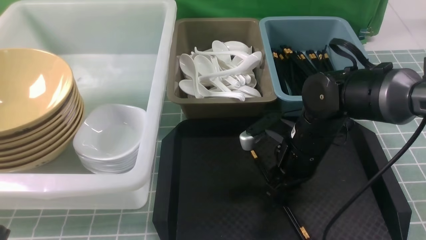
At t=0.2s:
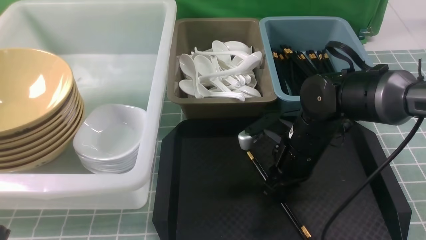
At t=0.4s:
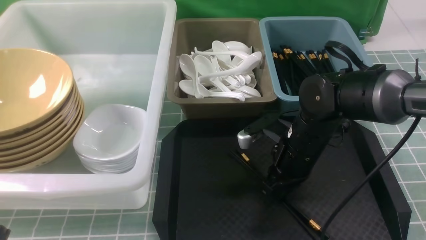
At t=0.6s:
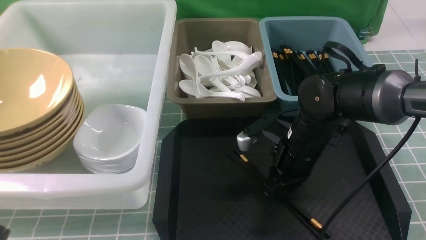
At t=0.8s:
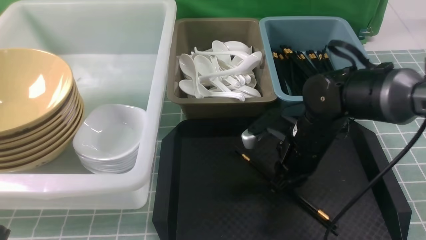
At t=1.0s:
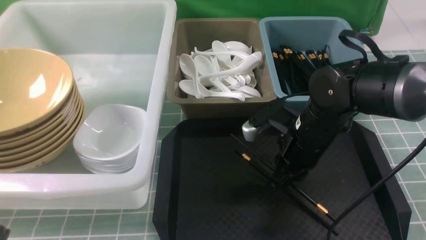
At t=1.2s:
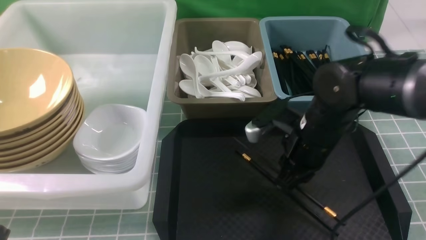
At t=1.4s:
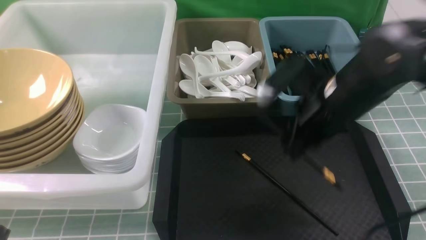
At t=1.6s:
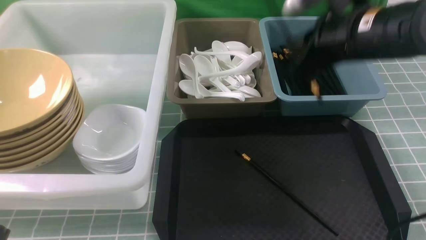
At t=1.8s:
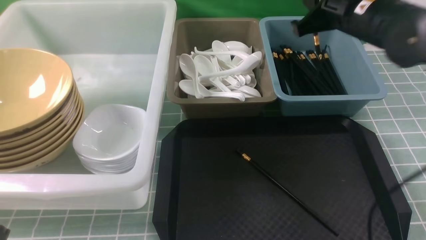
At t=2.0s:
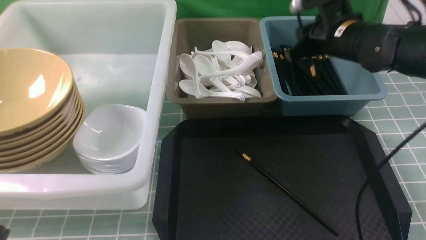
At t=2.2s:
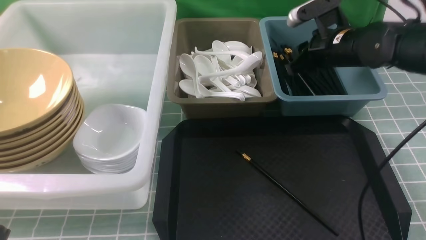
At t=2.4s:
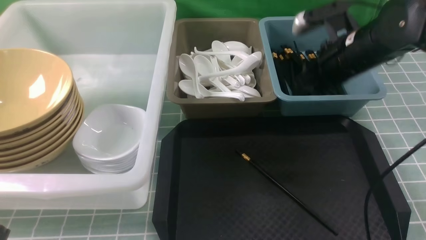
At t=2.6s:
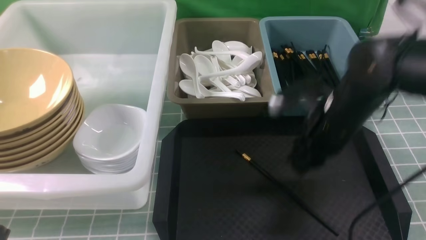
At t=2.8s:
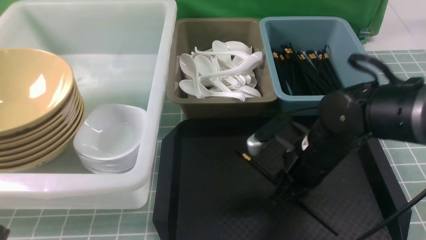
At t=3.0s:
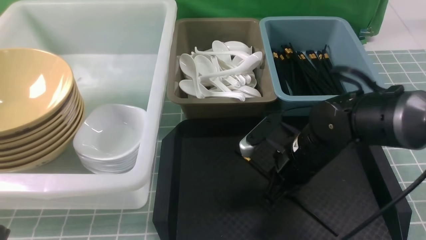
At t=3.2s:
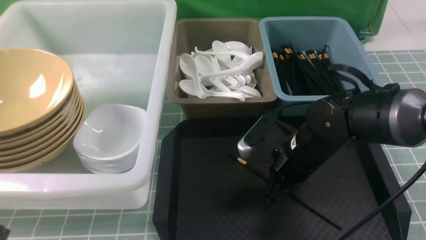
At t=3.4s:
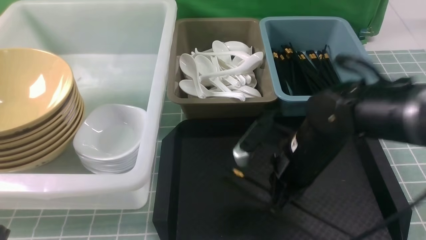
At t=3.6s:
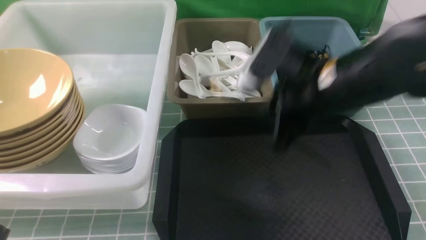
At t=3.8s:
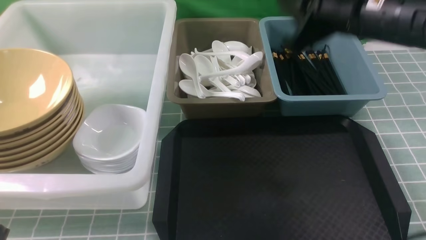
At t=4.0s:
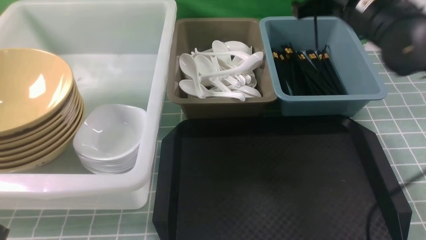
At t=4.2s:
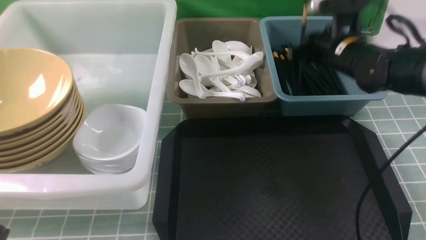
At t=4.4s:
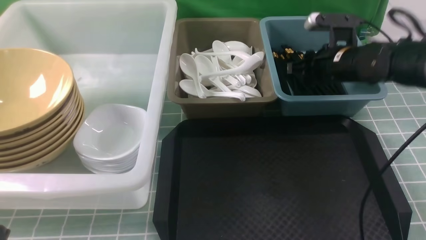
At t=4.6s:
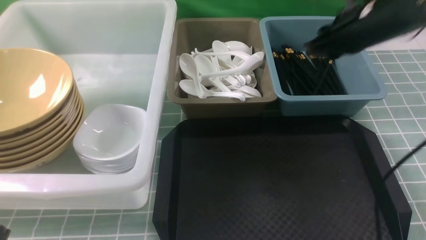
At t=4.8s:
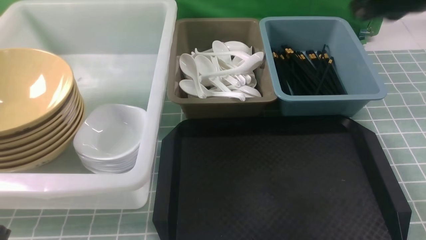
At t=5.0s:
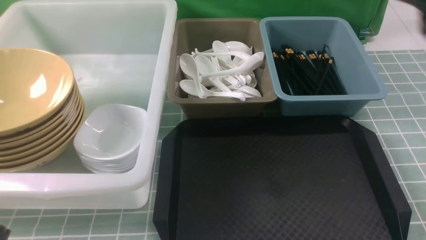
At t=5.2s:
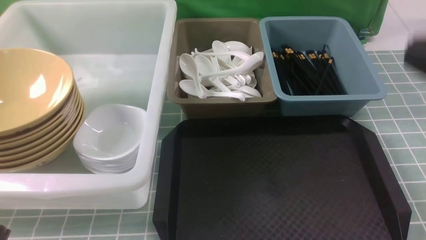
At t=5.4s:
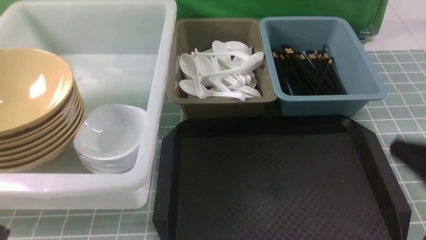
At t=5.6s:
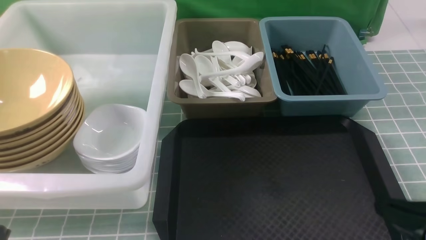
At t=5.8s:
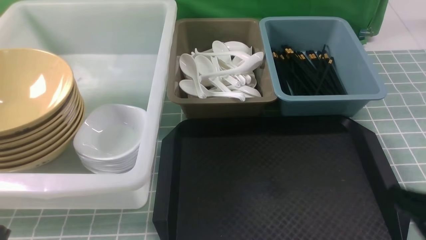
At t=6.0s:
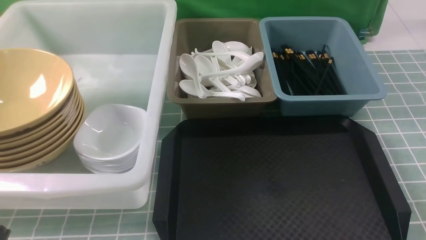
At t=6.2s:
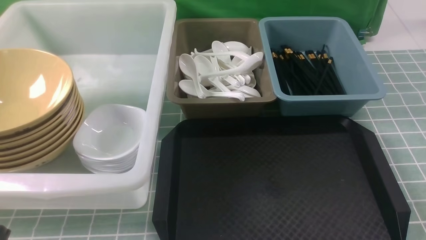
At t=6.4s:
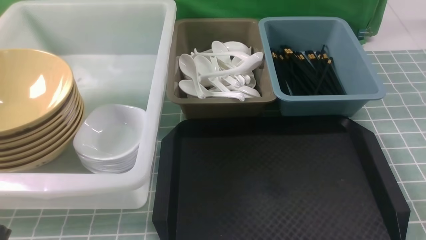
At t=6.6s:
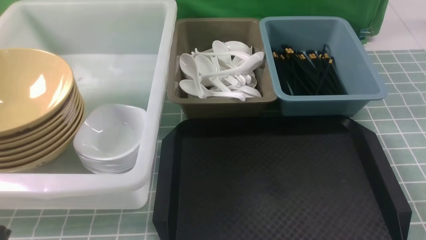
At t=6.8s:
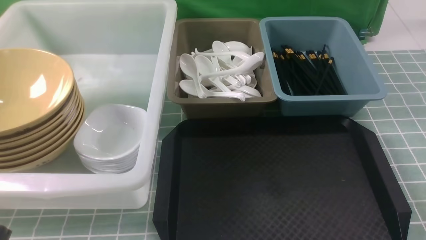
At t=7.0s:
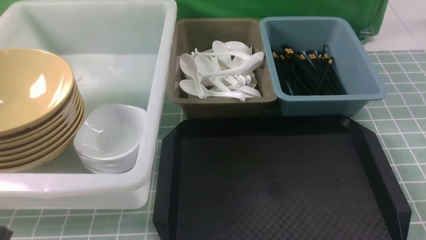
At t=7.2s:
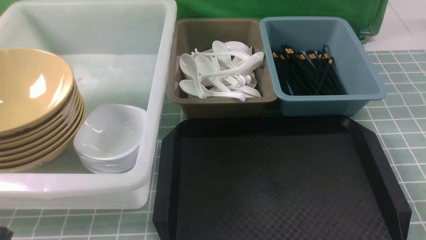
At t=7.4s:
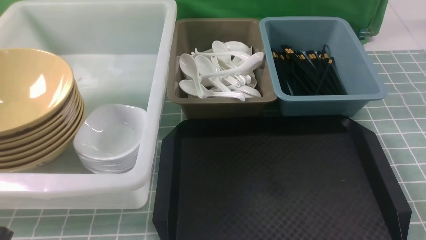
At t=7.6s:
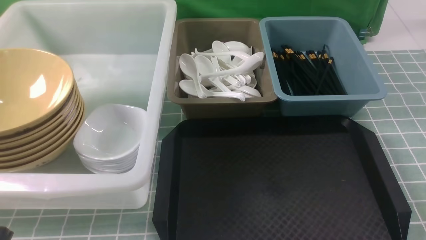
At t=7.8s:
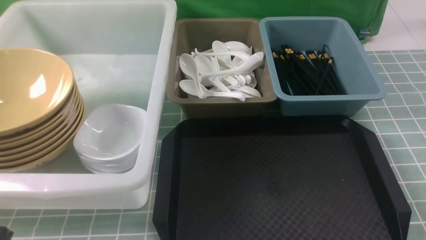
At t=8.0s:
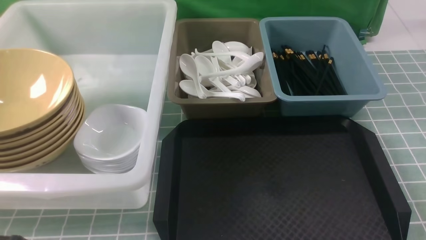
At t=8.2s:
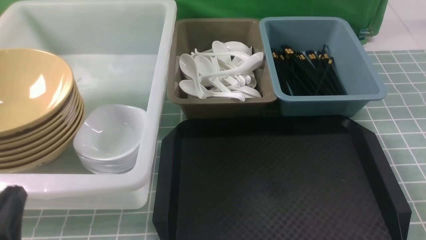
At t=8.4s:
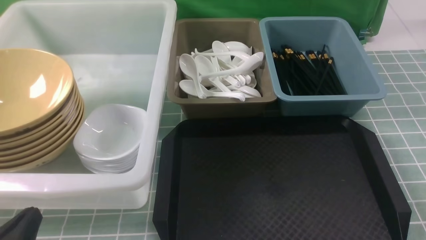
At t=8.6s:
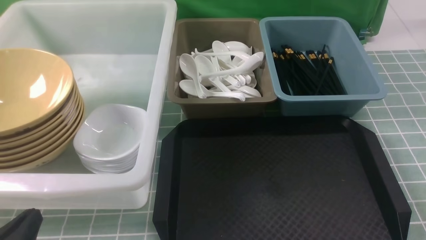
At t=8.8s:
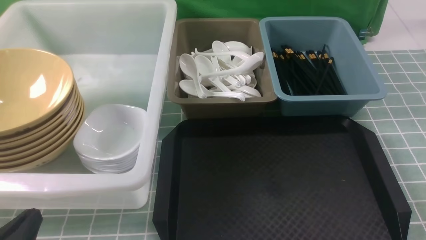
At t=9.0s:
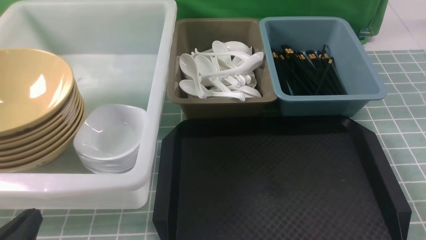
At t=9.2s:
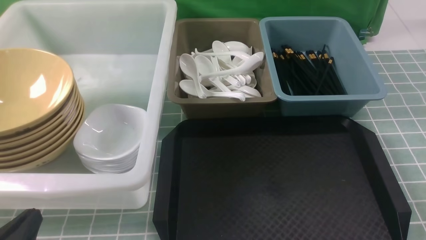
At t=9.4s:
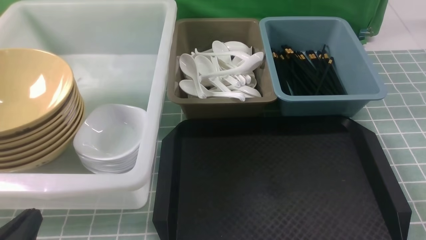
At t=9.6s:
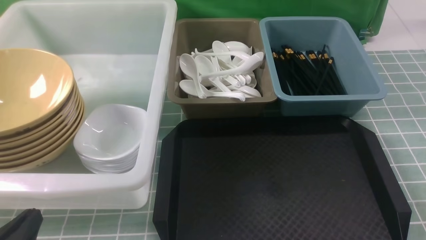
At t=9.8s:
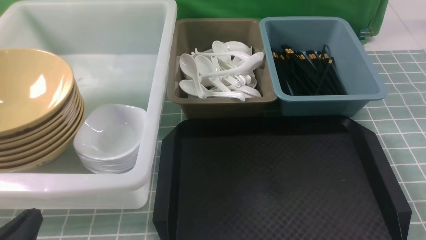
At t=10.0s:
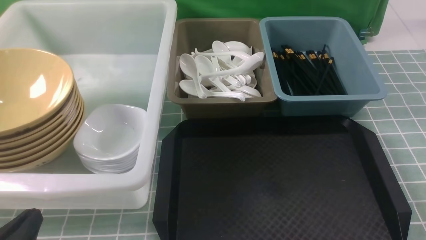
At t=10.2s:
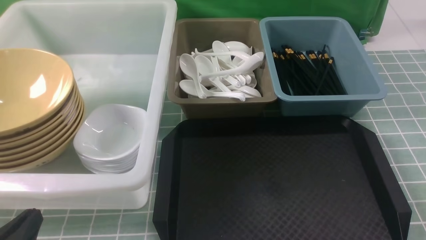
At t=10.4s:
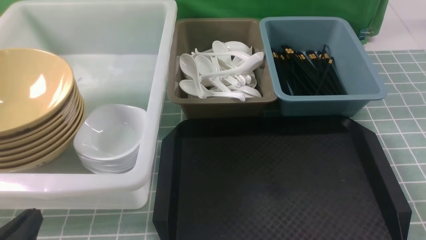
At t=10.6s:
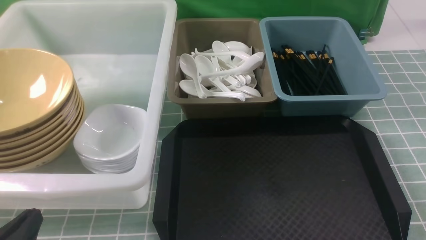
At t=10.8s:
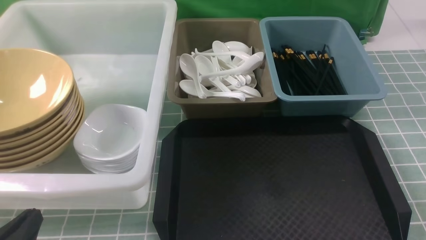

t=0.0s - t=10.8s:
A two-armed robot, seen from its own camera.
Task of the whole recording: on blue table put chopsticks spoon bowls plates into blue grey white boxes.
Step, t=0.0s - t=0.8s: use the right arm to grab a chopstick.
Step, t=1.2s - t=2.2s: use the right arm to put a chopstick into the small storage box on the right.
Step, t=2.4s - t=3.4s: use the right arm to grab a chopstick.
Step, t=3.6s - t=4.4s: use the right arm to put a chopstick into the small storage box on the right.
t=0.0s - t=1.6s: The right gripper goes some 15 cm upward, and closes up.
t=1.6s - t=3.0s: The right gripper travels downward by approximately 15 cm.
t=3.0s - t=4.6s: The right gripper swings up and down, roughly 20 cm each way, with 2 reversals.
t=4.6s - t=6.2s: The right gripper shifts some 30 cm backward and downward, and closes.
t=7.8s - t=9.2s: The left gripper travels downward by roughly 10 cm.
t=9.2s - t=10.8s: Both grippers stay about where they are.
